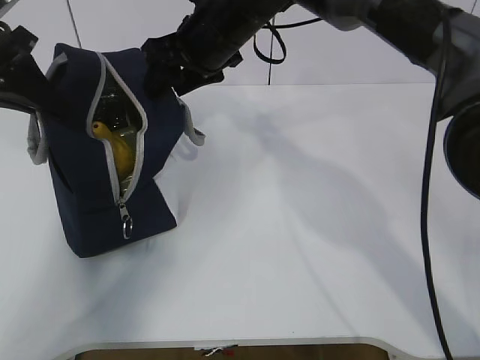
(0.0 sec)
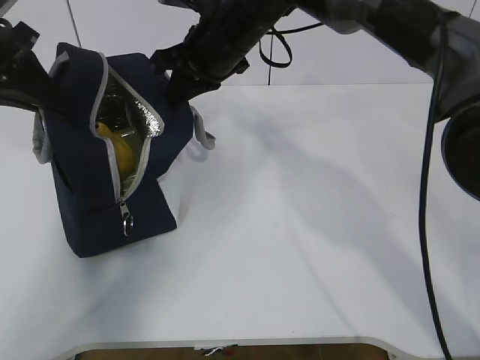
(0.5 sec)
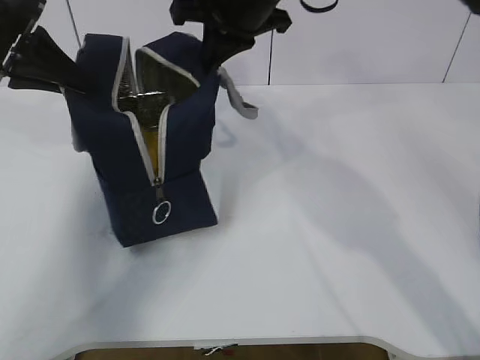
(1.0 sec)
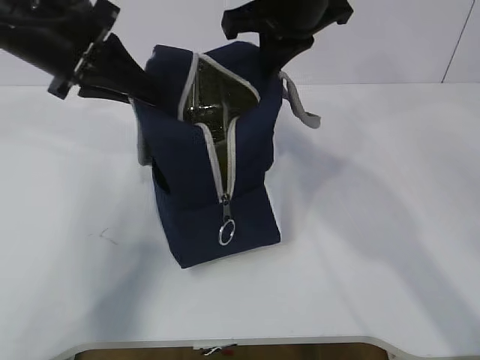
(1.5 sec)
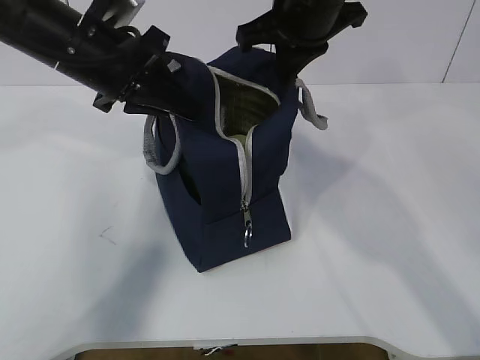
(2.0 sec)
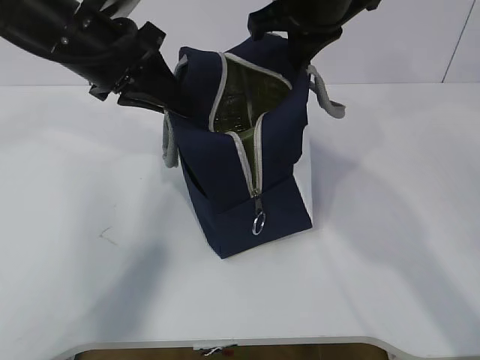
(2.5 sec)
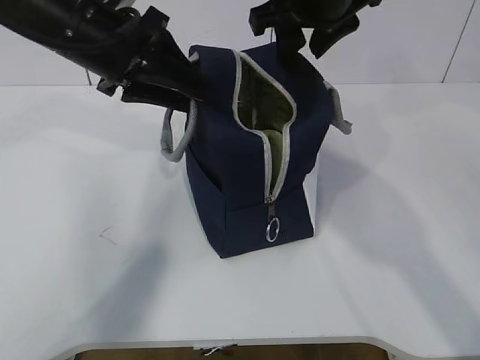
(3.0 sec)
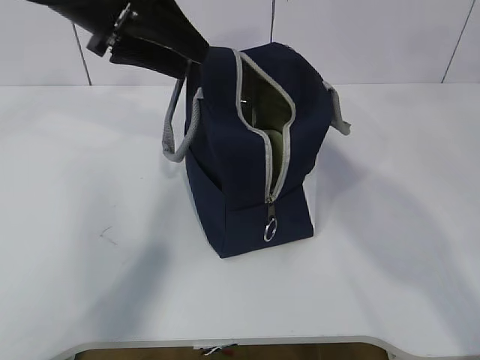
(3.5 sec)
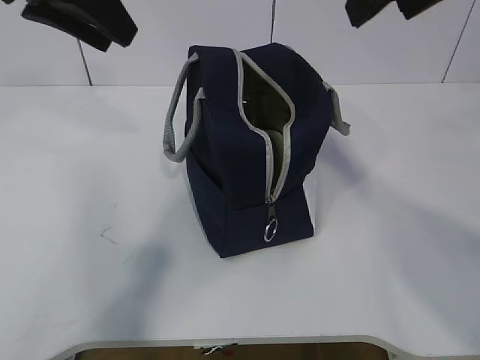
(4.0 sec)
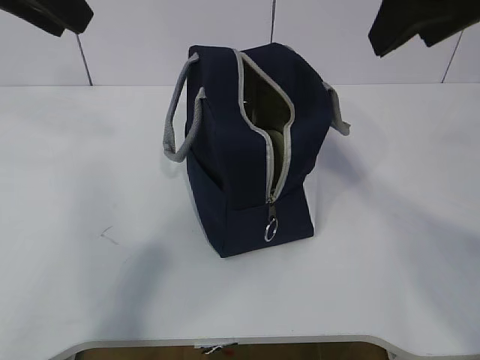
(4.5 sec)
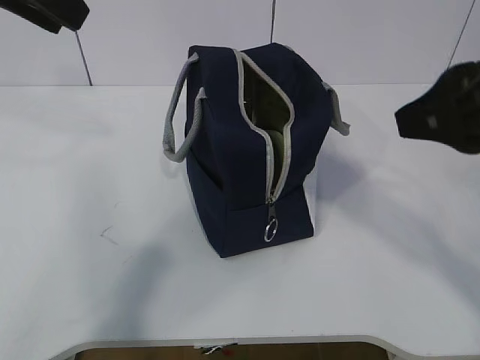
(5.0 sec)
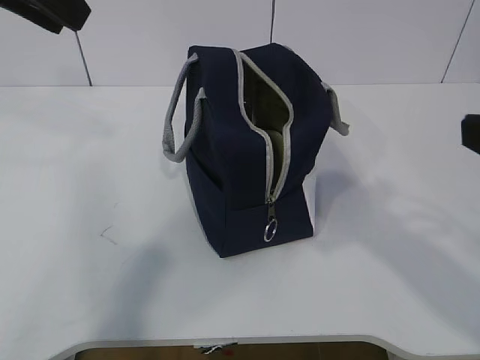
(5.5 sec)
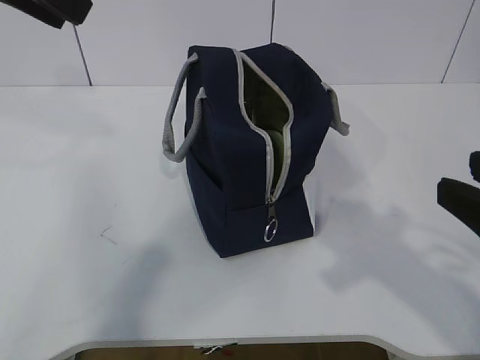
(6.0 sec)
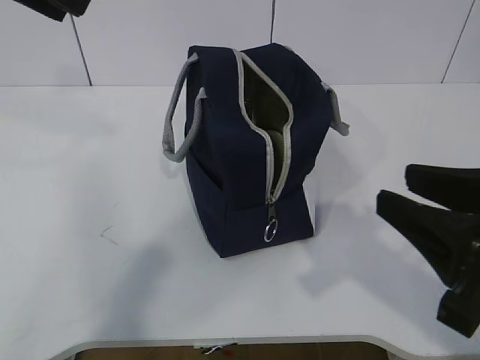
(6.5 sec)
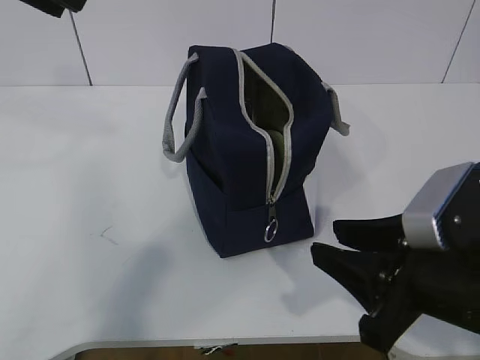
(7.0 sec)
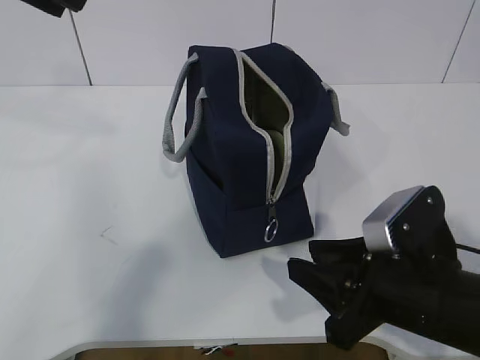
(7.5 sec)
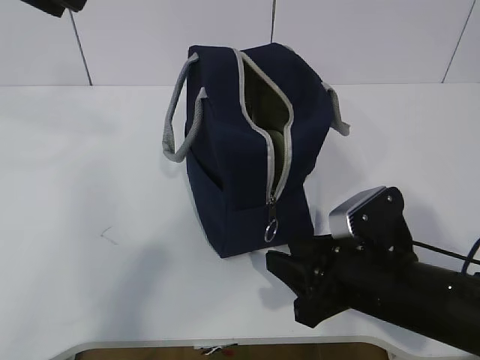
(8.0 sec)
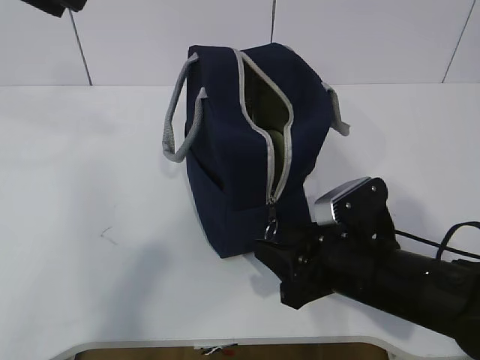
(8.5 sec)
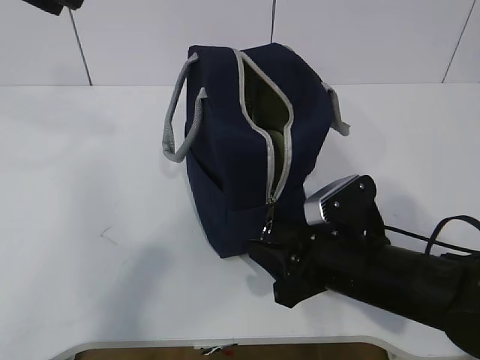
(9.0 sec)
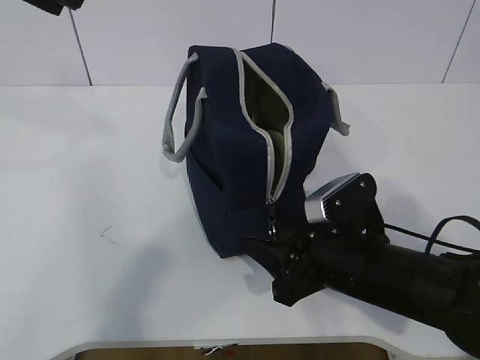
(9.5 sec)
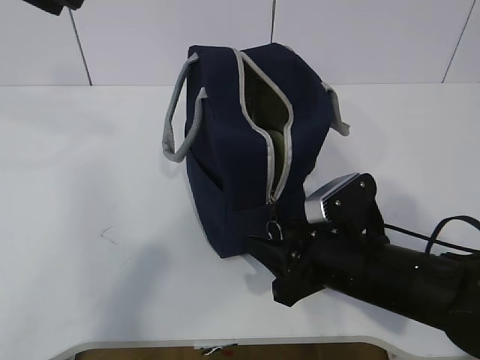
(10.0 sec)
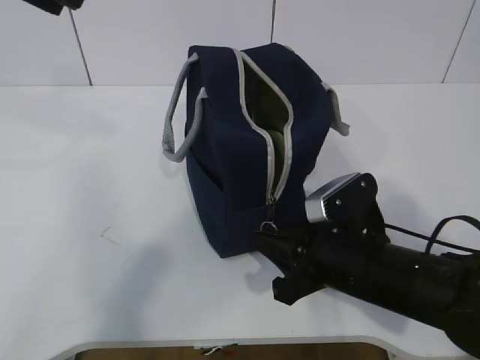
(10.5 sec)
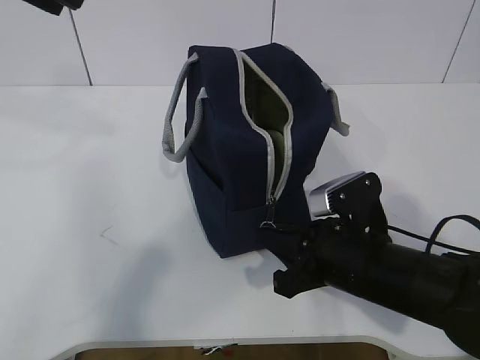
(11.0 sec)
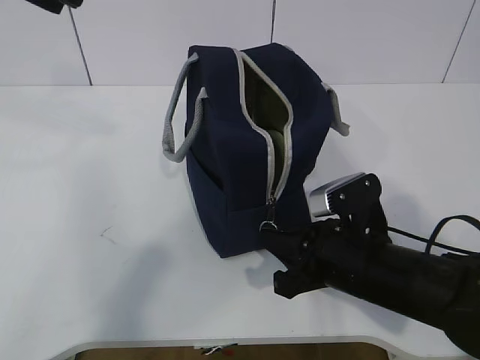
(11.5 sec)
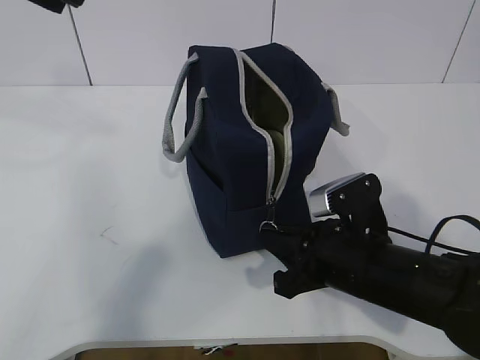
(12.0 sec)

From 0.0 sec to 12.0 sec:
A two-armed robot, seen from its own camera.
From 0.0 sec to 2.0 sec: The left gripper moves to the right, some 15 cm; the right gripper moves to the right and upward, about 10 cm, and closes.
From 2.0 sec to 4.0 sec: The left gripper travels upward by about 10 cm, and opens up, while the right gripper shifts roughly 15 cm backward, upward and to the right, and opens.
From 4.0 sec to 6.0 sec: The left gripper moves backward, approximately 5 cm, while the right gripper goes about 25 cm downward, backward and to the right.
From 6.0 sec to 8.0 sec: The right gripper shifts about 20 cm downward, forward and to the left.
From 8.0 sec to 10.0 sec: There are only small adjustments of the grippers.
From 10.0 sec to 12.0 sec: The right gripper closes up.

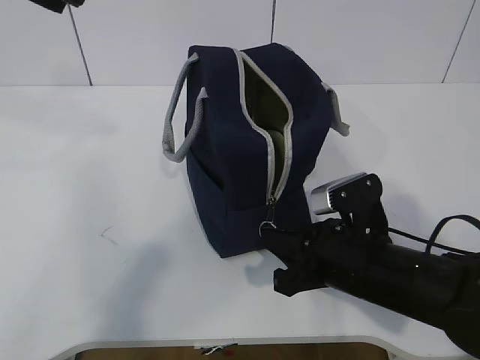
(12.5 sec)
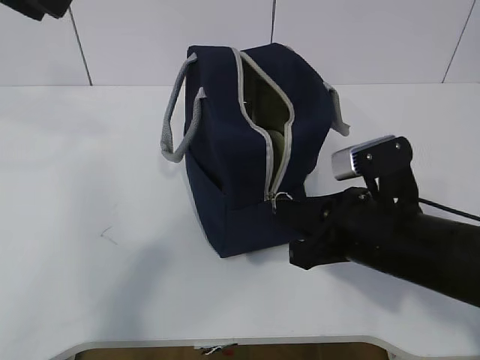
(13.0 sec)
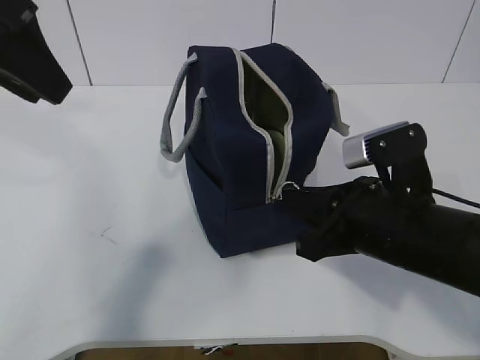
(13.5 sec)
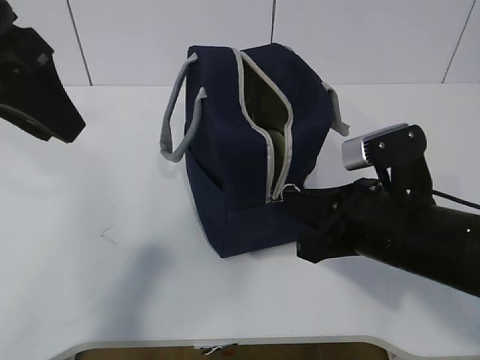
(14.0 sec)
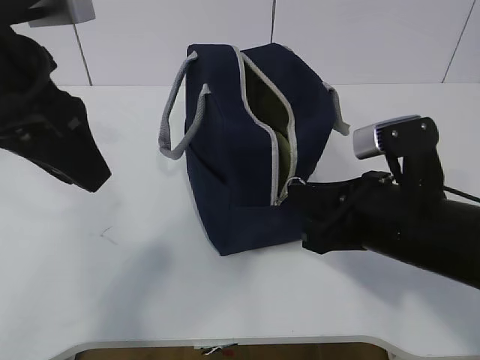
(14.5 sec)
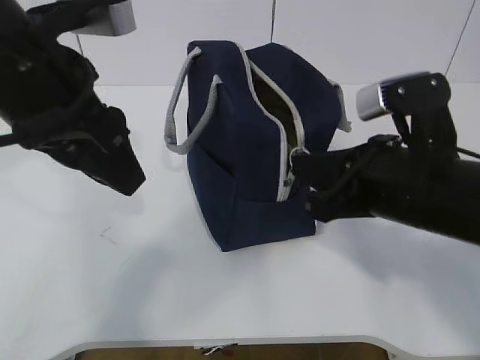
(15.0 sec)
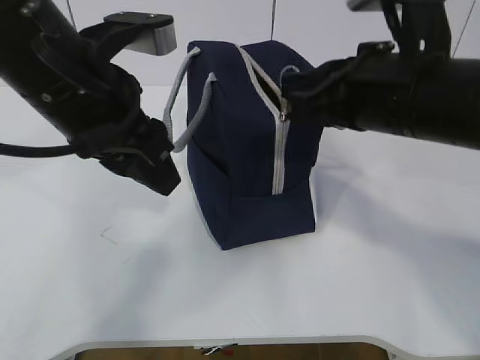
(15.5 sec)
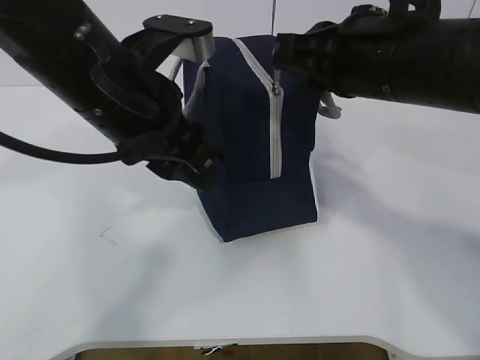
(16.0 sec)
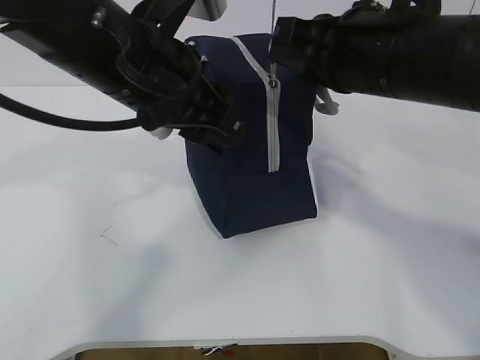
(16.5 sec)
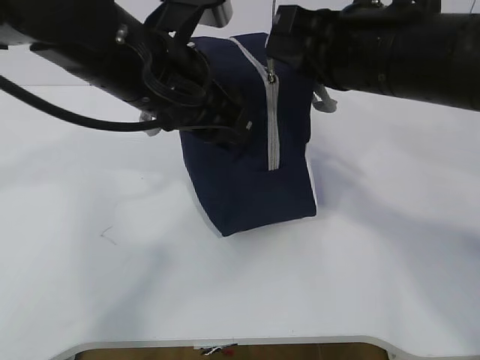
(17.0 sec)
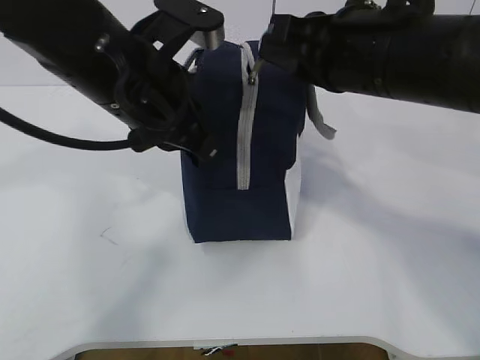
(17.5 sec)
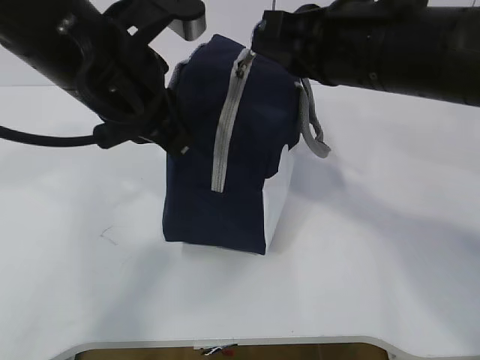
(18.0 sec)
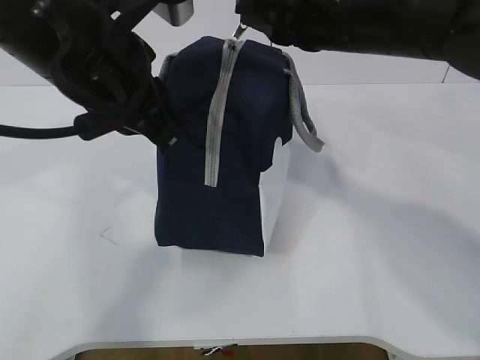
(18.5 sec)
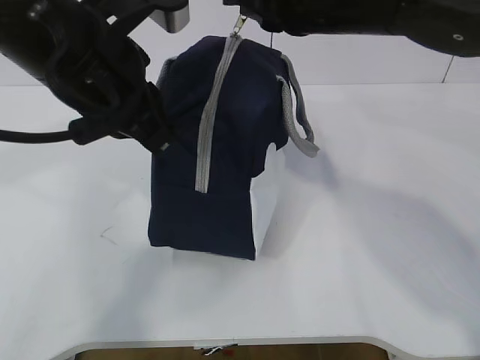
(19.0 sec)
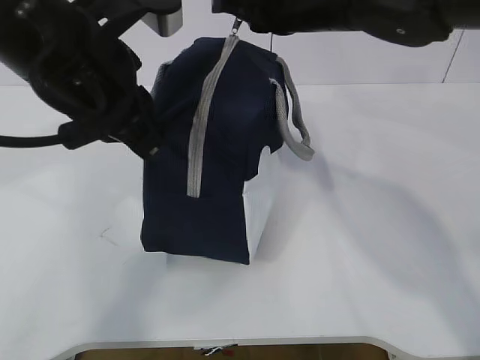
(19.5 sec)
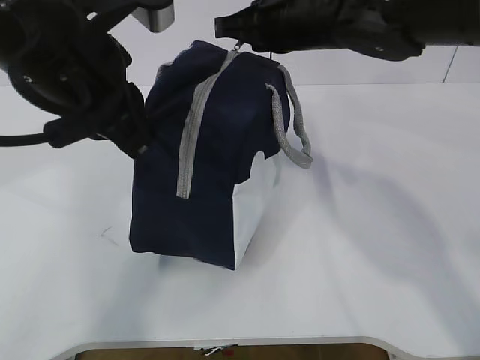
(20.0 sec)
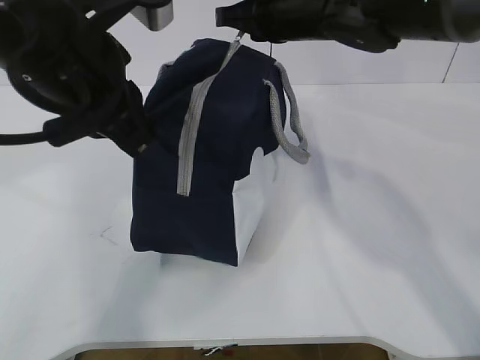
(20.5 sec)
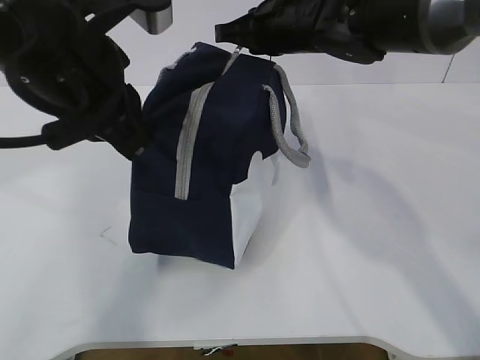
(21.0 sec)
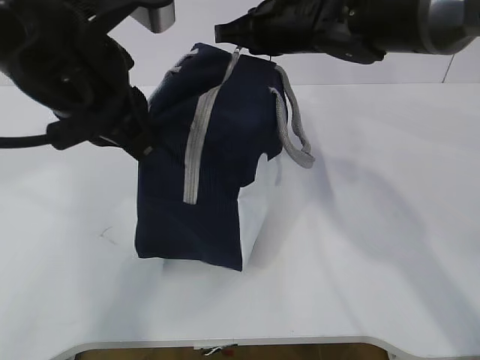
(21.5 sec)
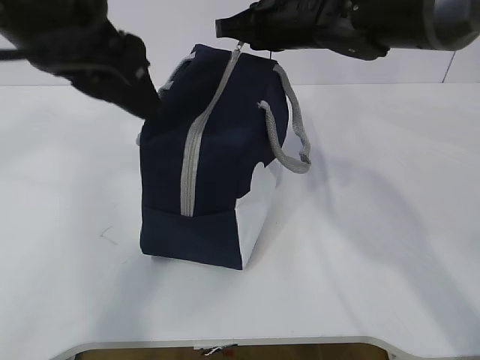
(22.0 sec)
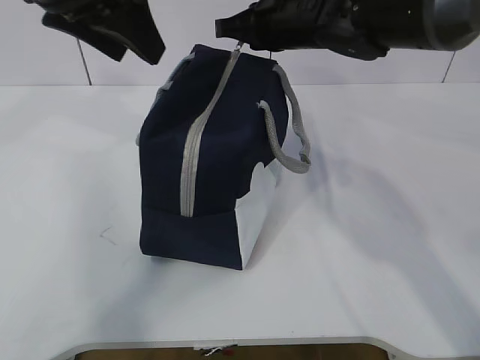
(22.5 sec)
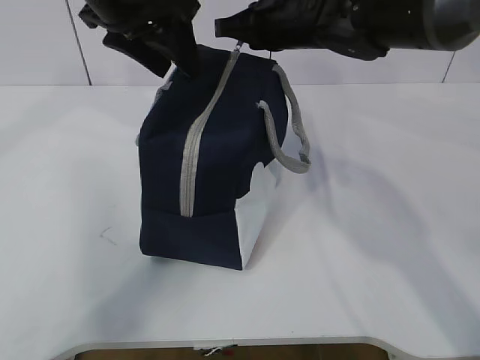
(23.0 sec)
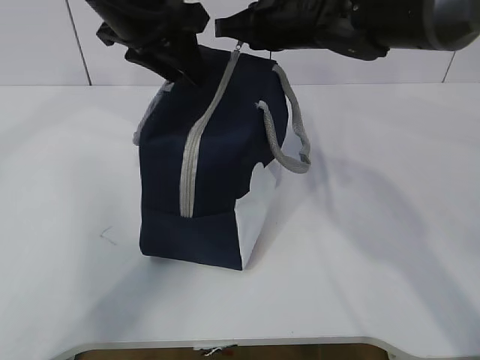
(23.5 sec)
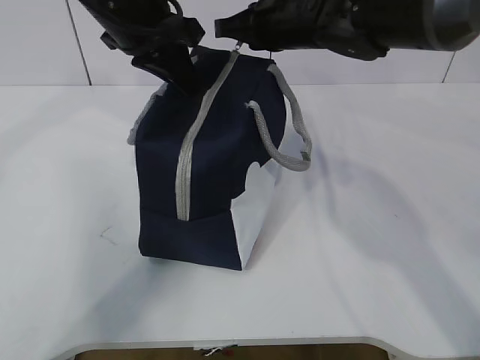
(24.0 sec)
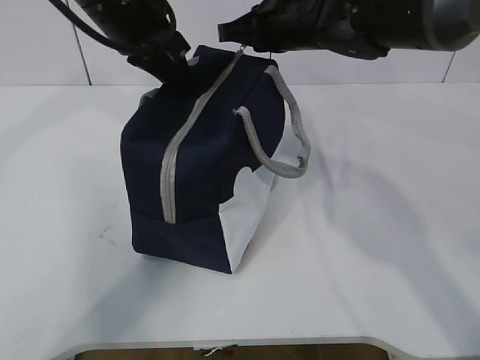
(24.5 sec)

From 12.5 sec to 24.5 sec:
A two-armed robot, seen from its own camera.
Step, from 13.0 sec to 18.0 sec: Pull the zipper with your right hand.
From 12.5 sec to 14.5 sec: The left gripper goes some 10 cm downward. The right gripper travels upward by approximately 5 cm.
From 14.5 sec to 16.5 sec: The right gripper shifts some 15 cm upward and forward. Meanwhile the left gripper is displaced to the right by about 10 cm.
From 16.5 sec to 18.5 sec: The left gripper closes.
From 18.5 sec to 20.5 sec: The right gripper heads forward, covering about 10 cm.
From 20.5 sec to 22.5 sec: The left gripper moves upward and forward, approximately 10 cm, and opens.
From 22.5 sec to 24.5 sec: The left gripper heads forward and downward, covering roughly 10 cm, and closes its fingers.

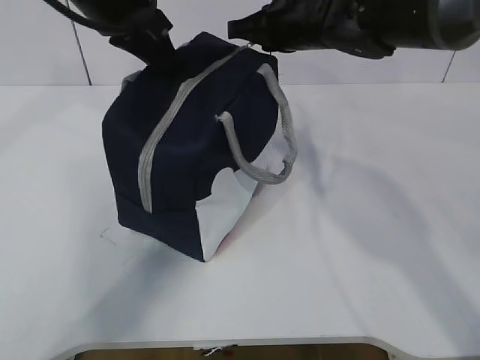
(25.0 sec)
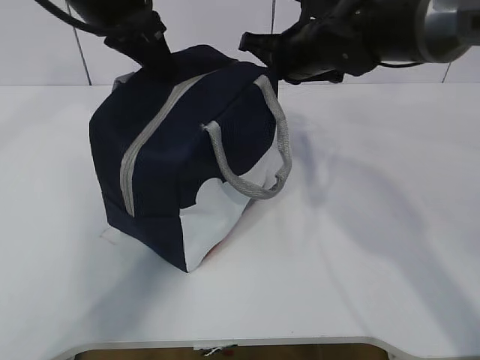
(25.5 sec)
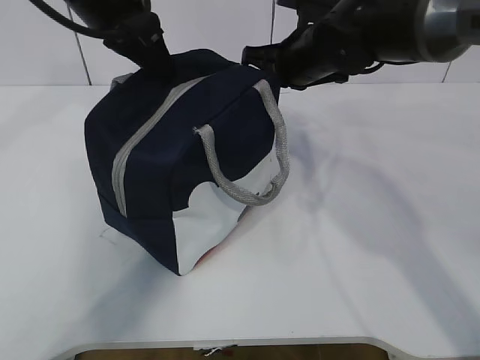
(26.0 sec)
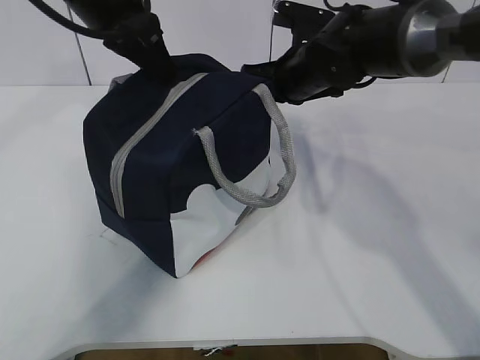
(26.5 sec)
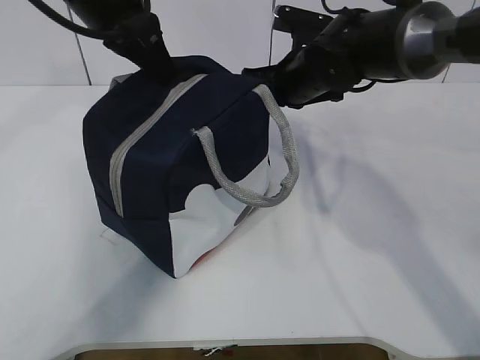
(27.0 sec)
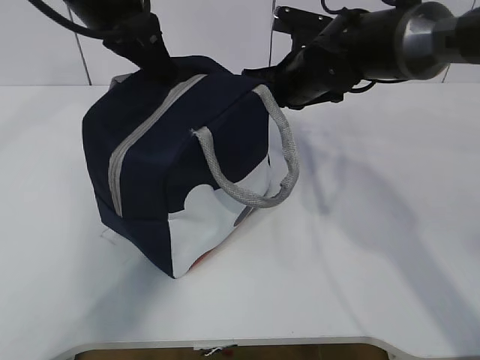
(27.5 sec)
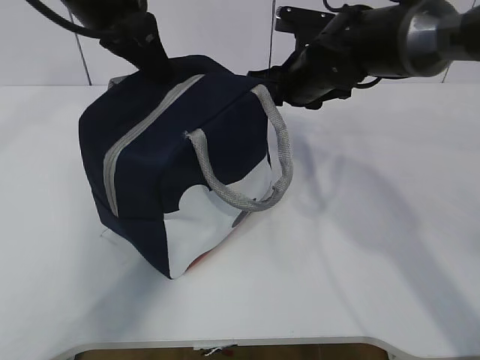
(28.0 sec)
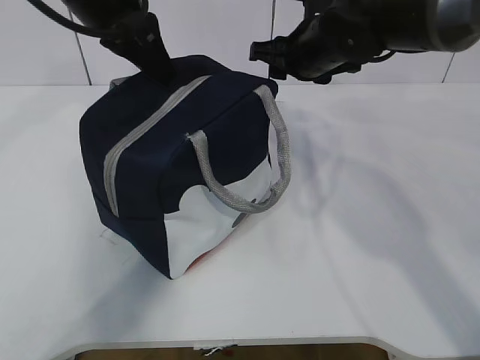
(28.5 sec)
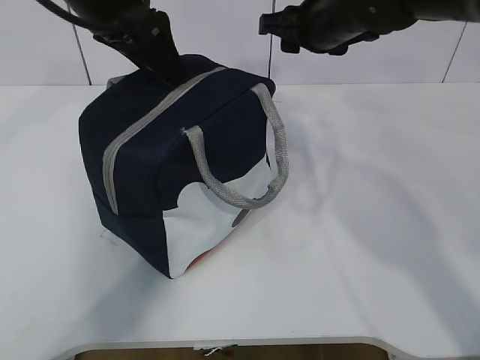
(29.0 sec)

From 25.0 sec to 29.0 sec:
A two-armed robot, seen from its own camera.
From 25.0 sec to 27.0 sec: The right gripper goes roughly 5 cm downward.
From 27.0 sec to 29.0 sec: The left gripper opens up, while the right gripper goes roughly 10 cm upward, and opens.
